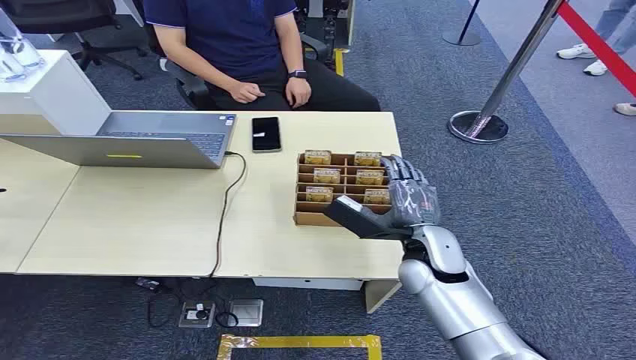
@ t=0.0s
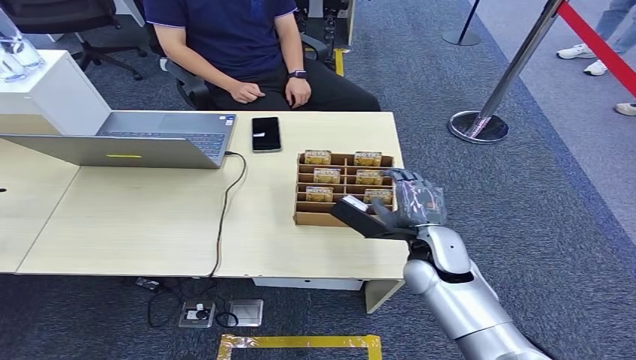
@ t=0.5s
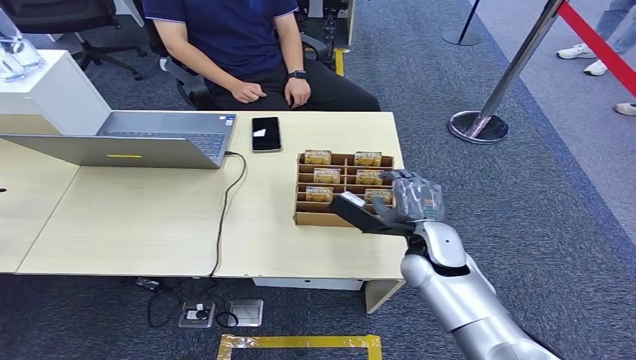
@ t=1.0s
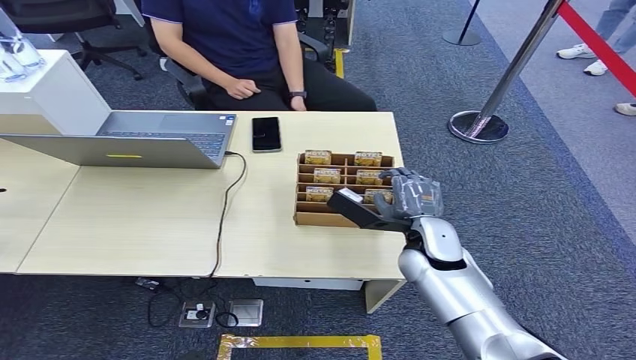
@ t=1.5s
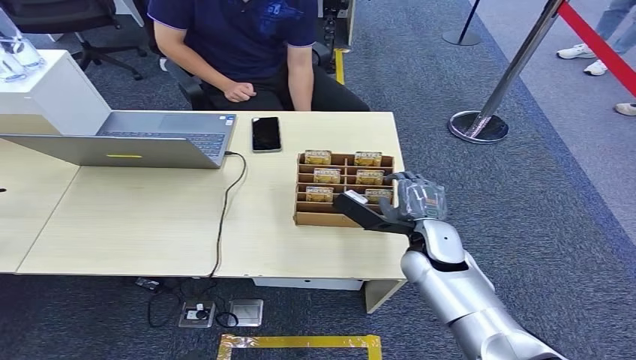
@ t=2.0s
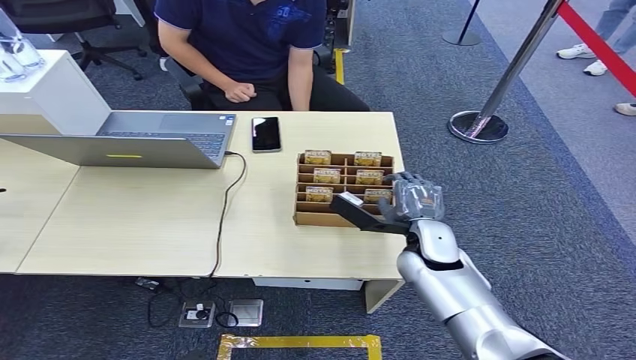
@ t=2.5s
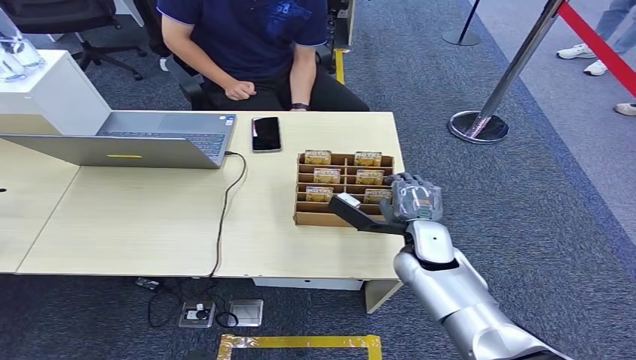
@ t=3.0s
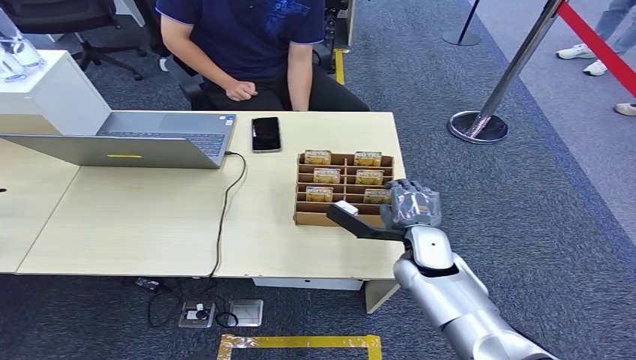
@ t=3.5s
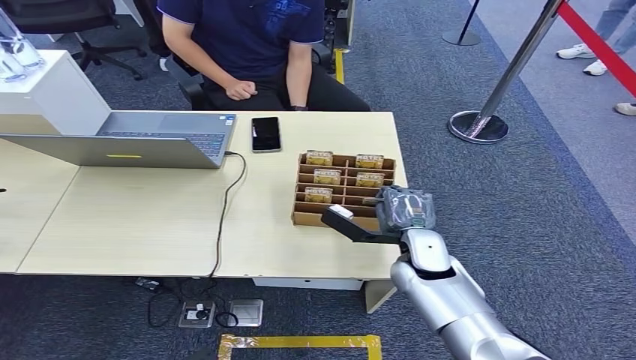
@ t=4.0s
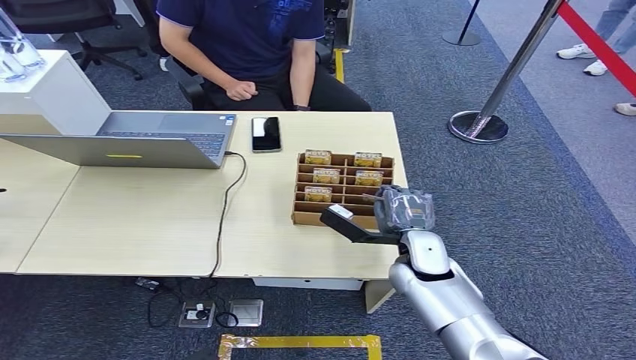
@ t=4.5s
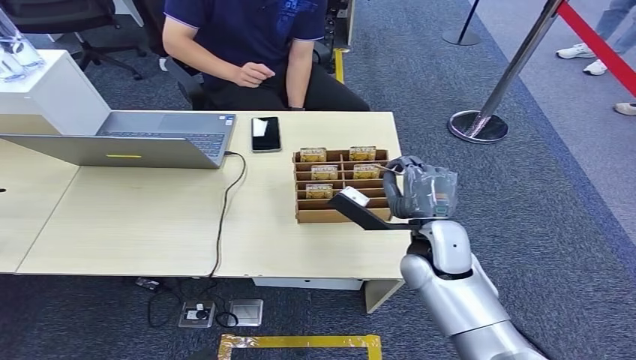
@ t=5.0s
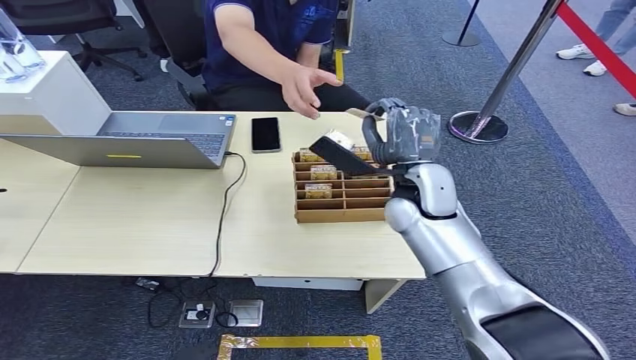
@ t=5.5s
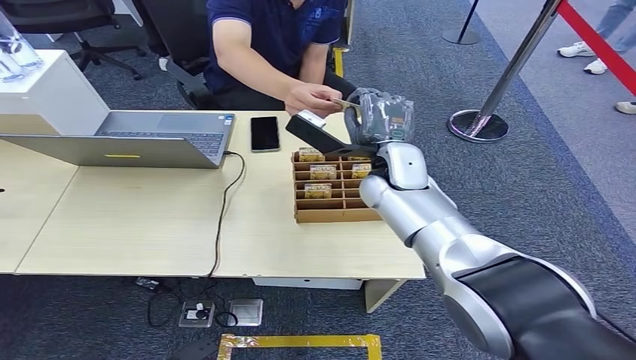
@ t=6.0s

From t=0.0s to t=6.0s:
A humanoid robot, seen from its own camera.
Step, from t=0.0s to t=5.0s: Pick up the key card from the card box.
Step, from t=5.5s to t=6.0s: Hand the key card to the target.
From t=2.0s to t=4.0s: The hands stay close to where they were, moving slightly.

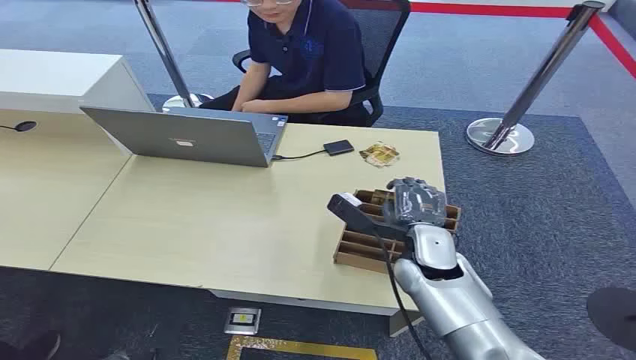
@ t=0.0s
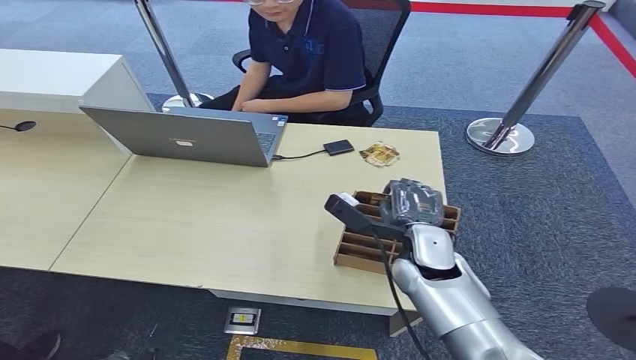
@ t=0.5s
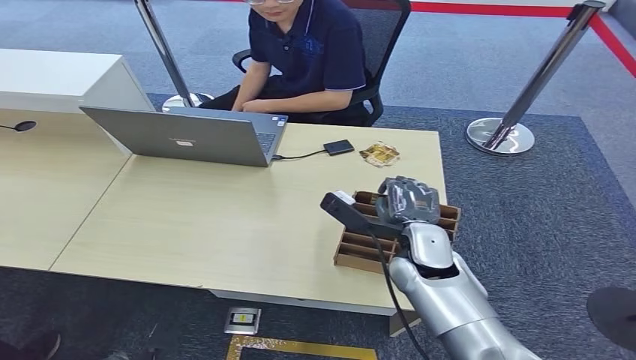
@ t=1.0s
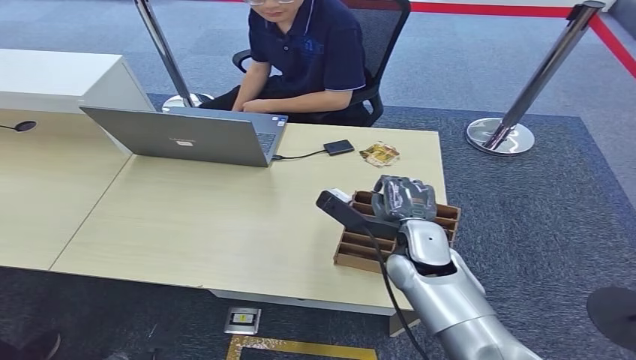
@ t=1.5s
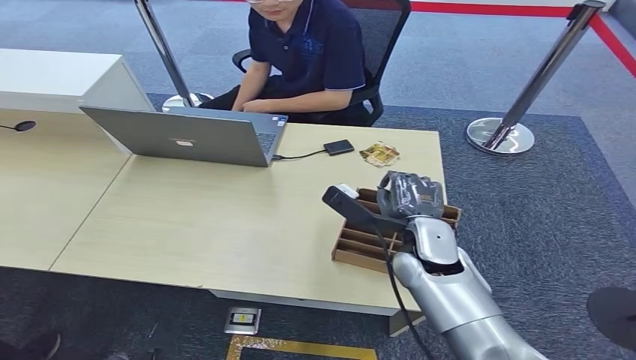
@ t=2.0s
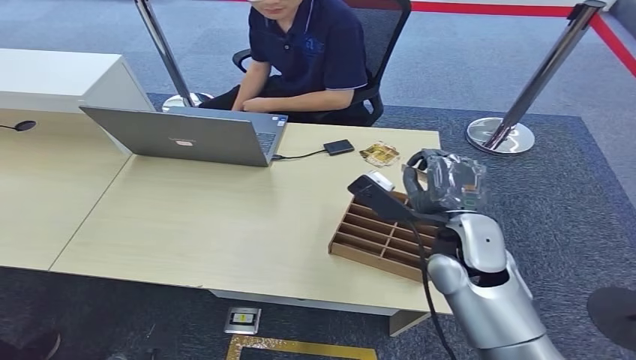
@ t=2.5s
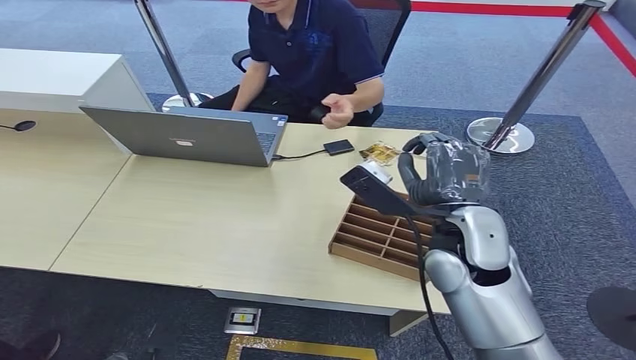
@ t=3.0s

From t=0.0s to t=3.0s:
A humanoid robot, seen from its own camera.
Step, from t=0.0s to t=2.0s: Pick up the key card from the card box.
Step, from t=2.5s to t=3.0s: Hand the key card to the target.
From t=1.5s to t=3.0s: The right hand shifts about 10 cm upward.
